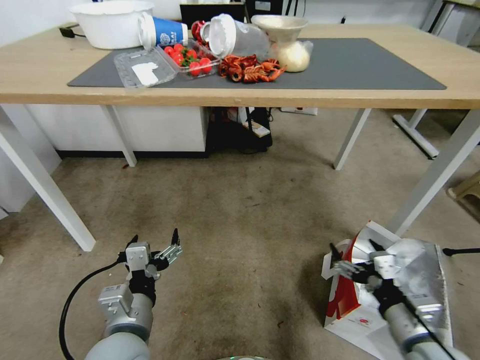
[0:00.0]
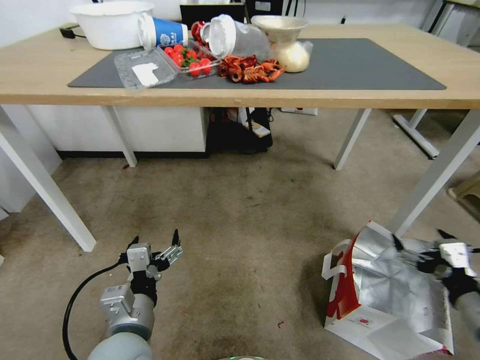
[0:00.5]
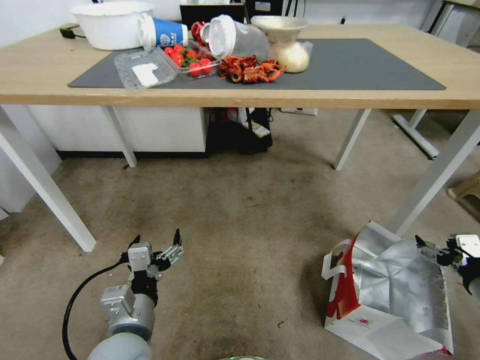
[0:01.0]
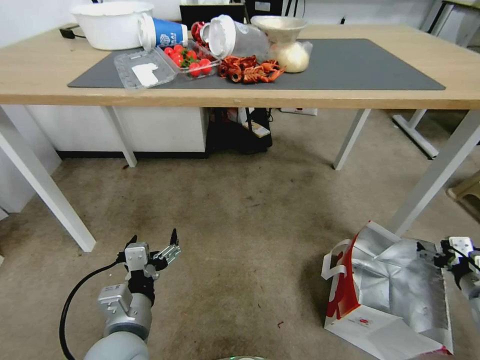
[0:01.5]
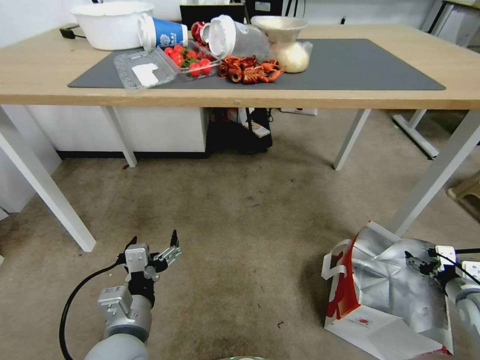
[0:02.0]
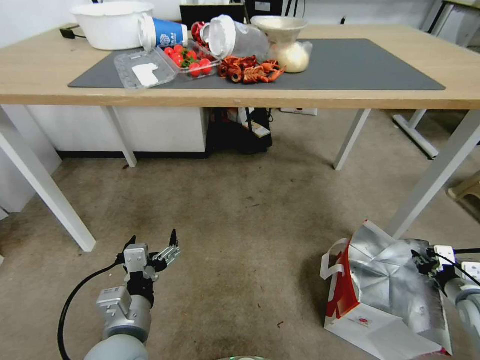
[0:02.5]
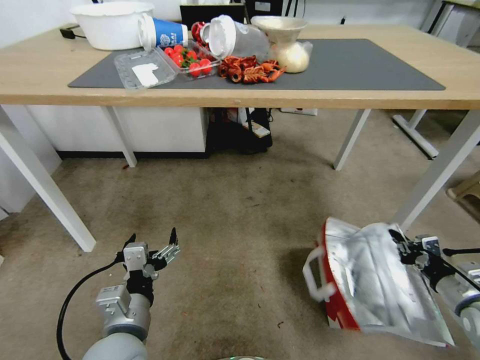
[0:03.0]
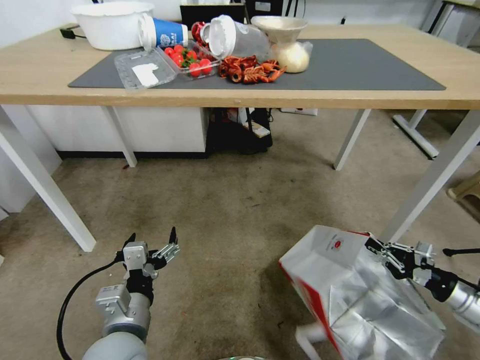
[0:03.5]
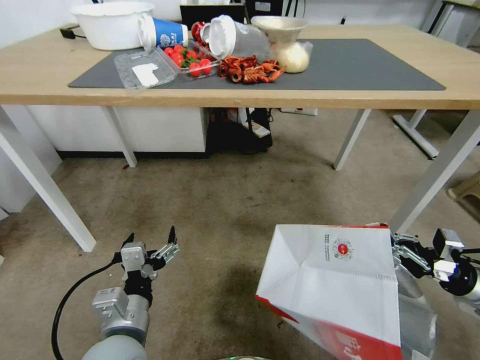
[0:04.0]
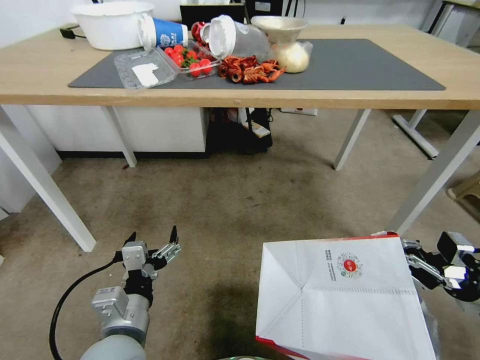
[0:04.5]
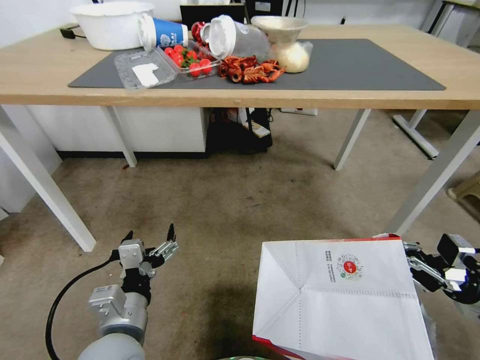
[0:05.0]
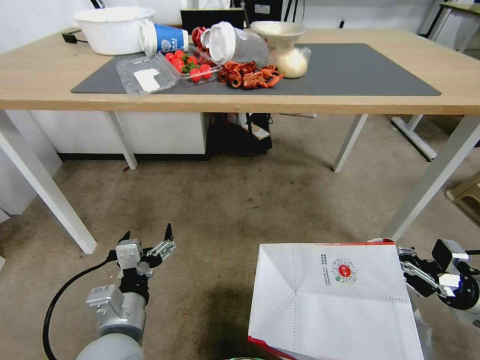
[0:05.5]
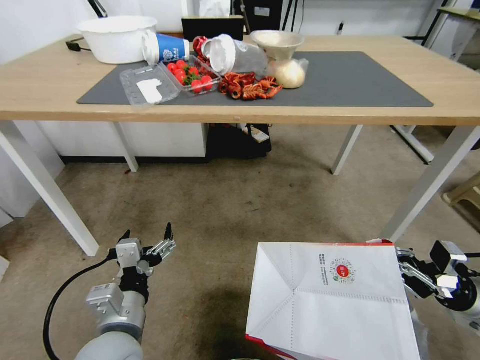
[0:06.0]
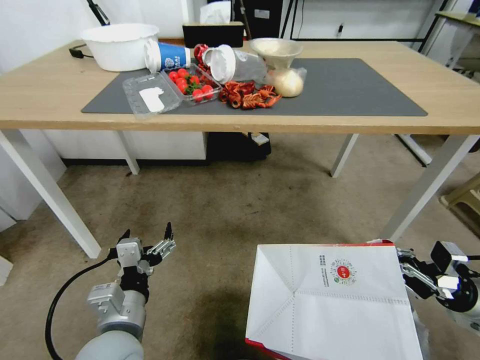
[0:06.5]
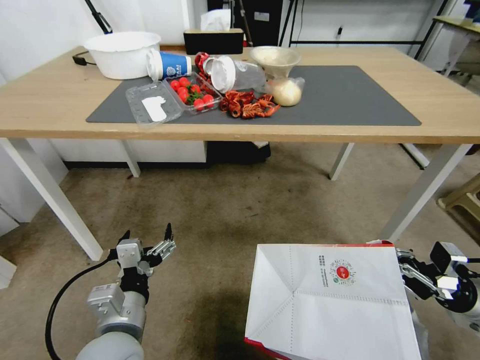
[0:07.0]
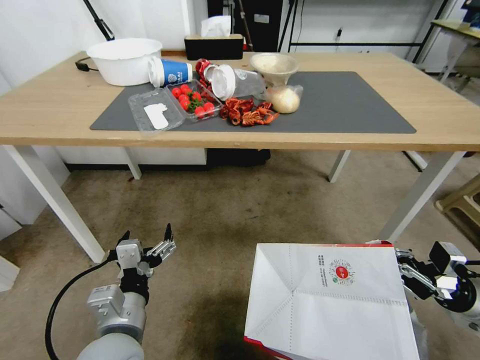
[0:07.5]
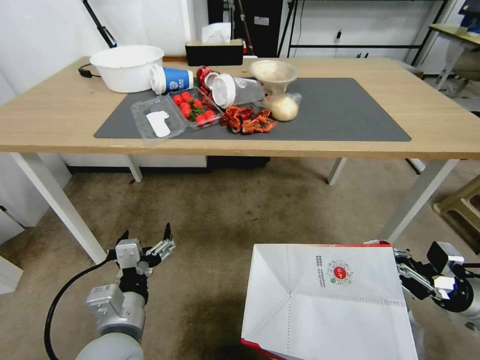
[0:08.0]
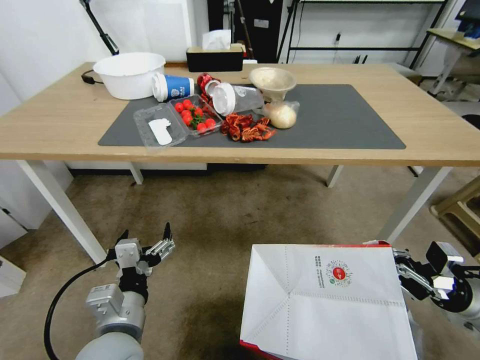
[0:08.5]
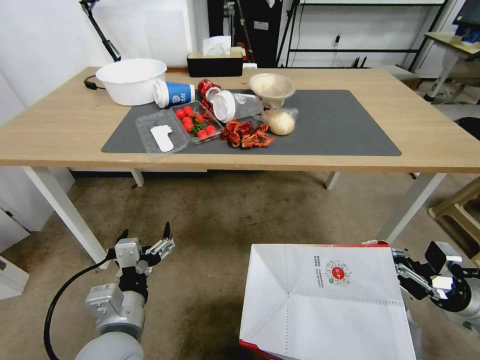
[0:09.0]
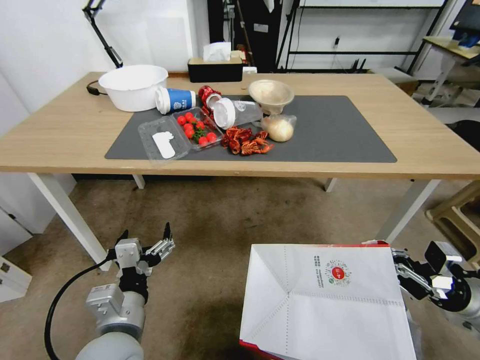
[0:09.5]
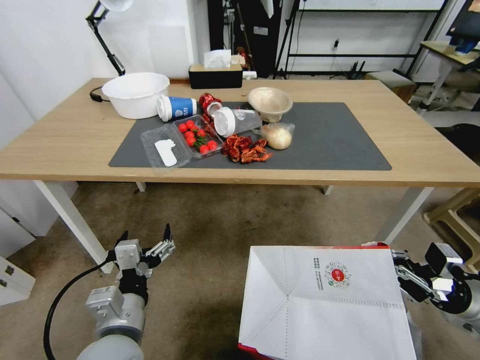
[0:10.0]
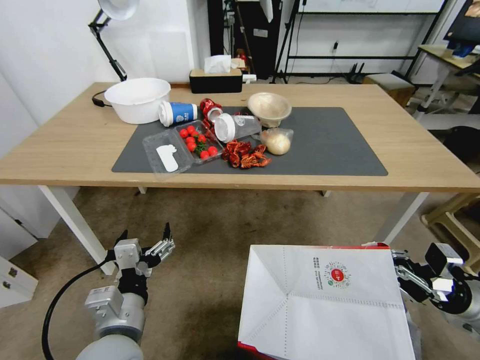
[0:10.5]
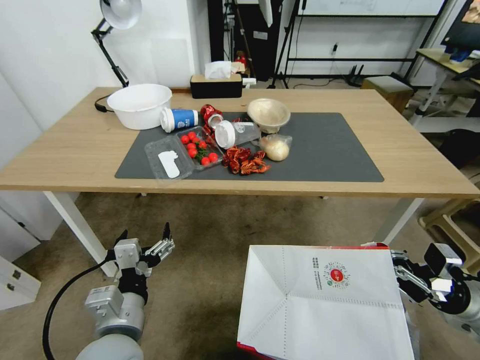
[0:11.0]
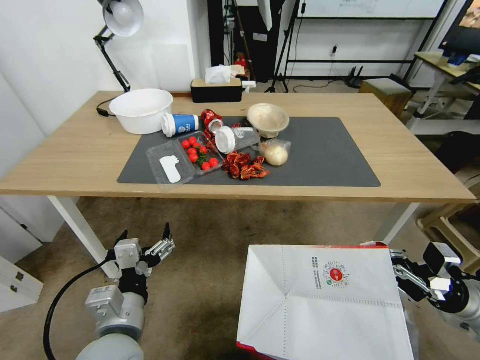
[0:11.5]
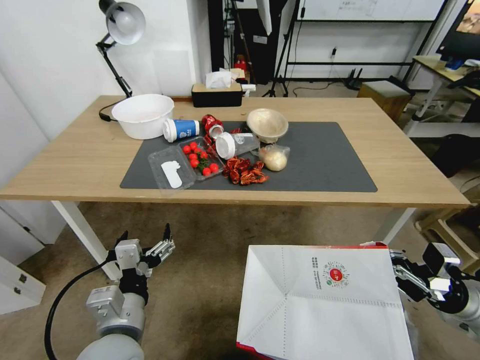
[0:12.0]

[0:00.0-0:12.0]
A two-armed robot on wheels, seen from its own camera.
Task of the whole recording: Pick up the food delivery bag from the floor and place it on the table.
0:00.0 to 0:02.0: The right gripper goes about 20 cm to the right and forward.
0:02.0 to 0:04.0: The right gripper closes its fingers.

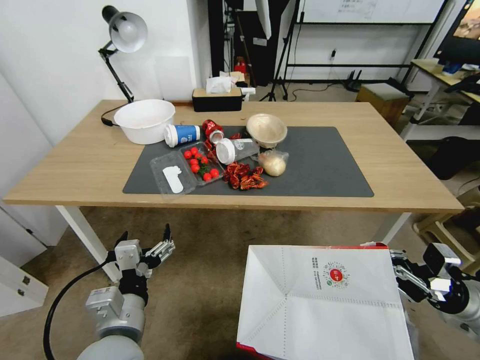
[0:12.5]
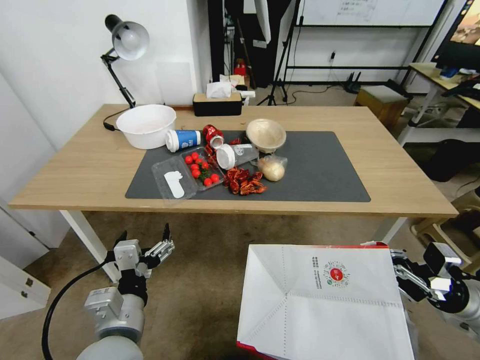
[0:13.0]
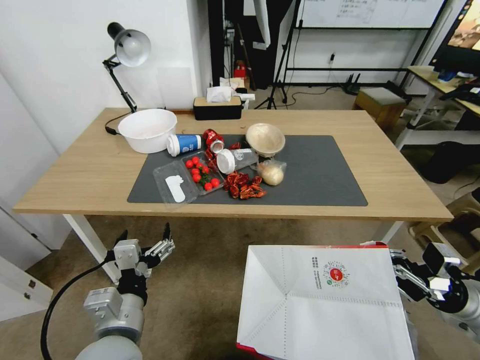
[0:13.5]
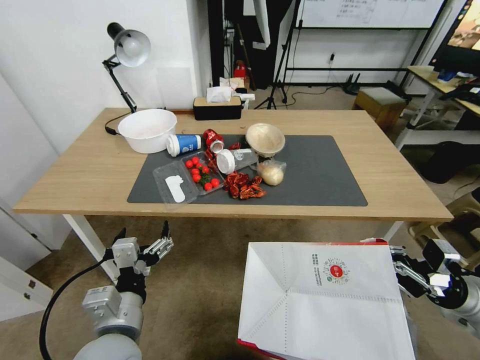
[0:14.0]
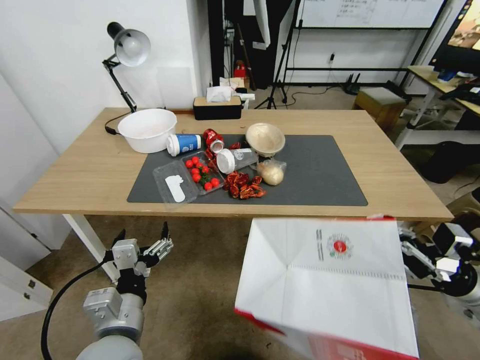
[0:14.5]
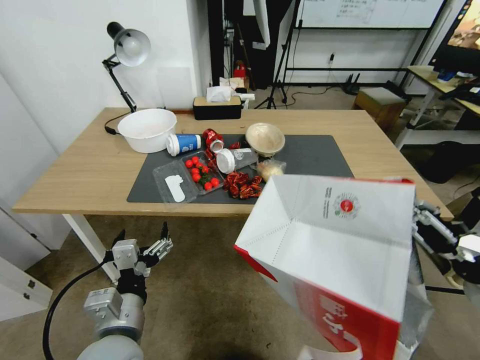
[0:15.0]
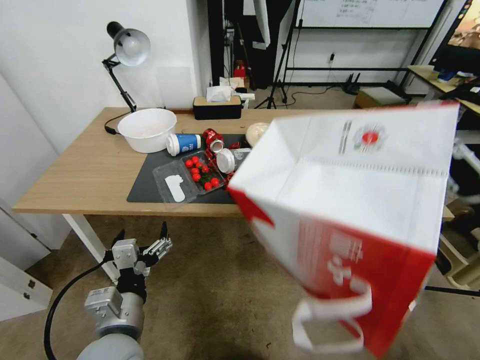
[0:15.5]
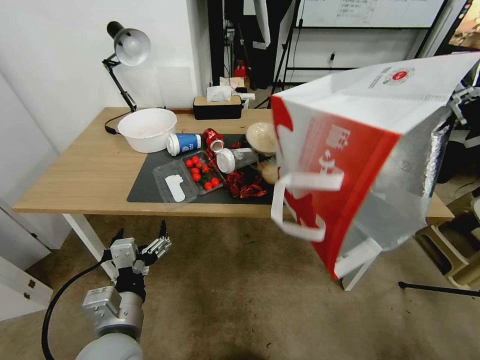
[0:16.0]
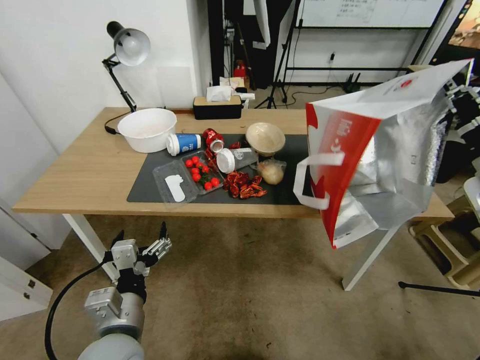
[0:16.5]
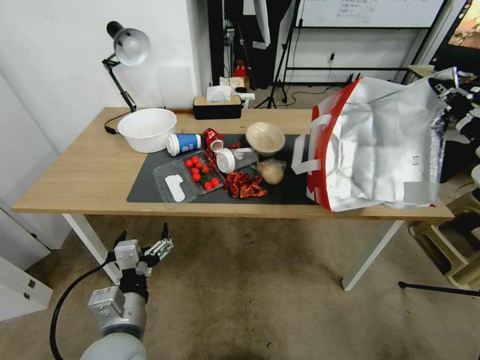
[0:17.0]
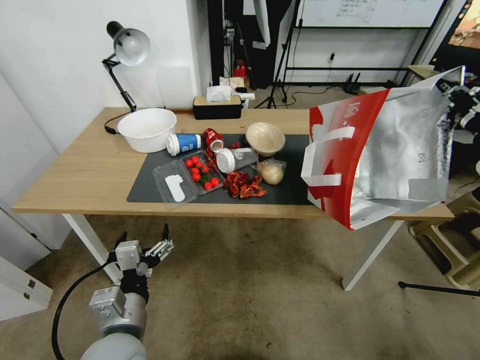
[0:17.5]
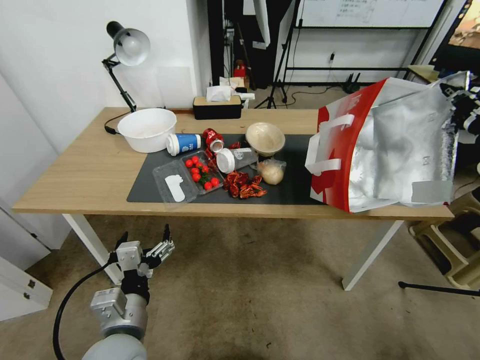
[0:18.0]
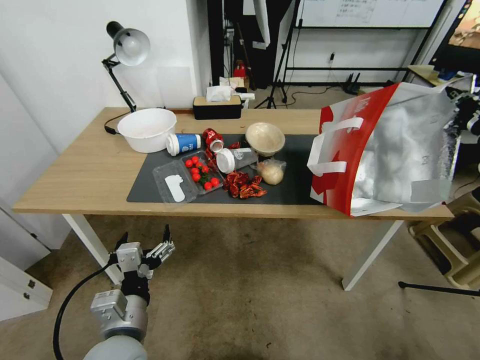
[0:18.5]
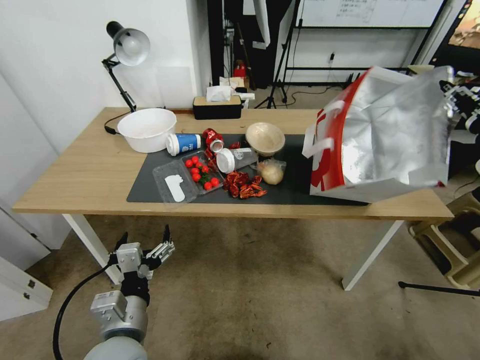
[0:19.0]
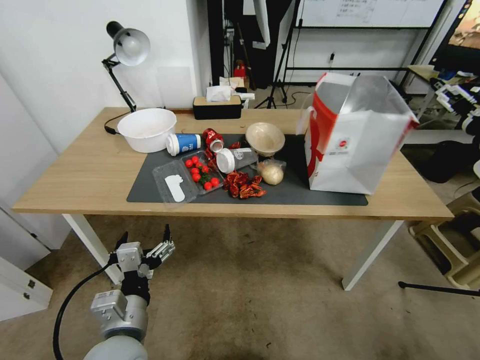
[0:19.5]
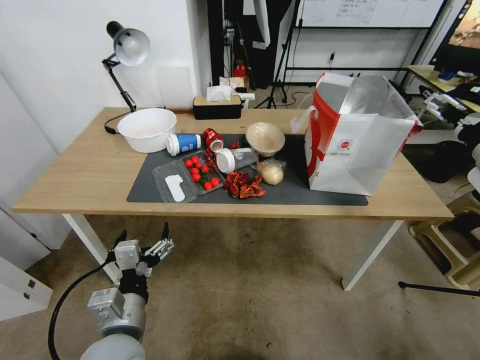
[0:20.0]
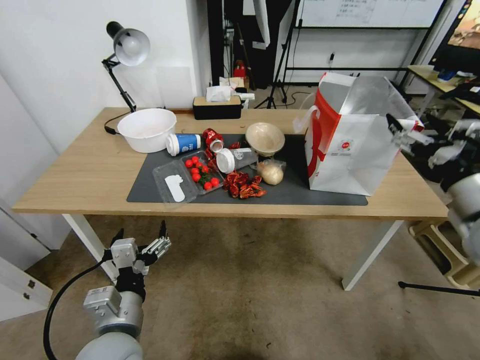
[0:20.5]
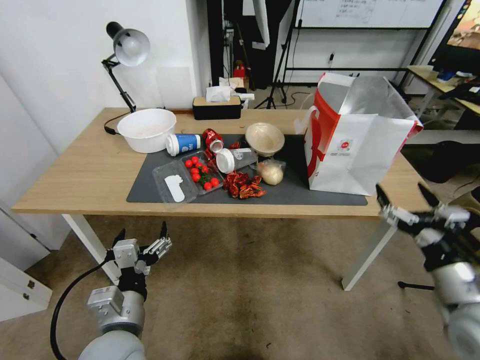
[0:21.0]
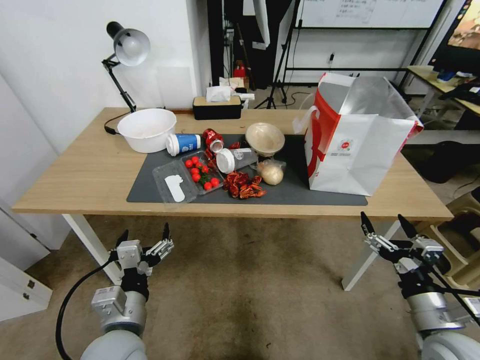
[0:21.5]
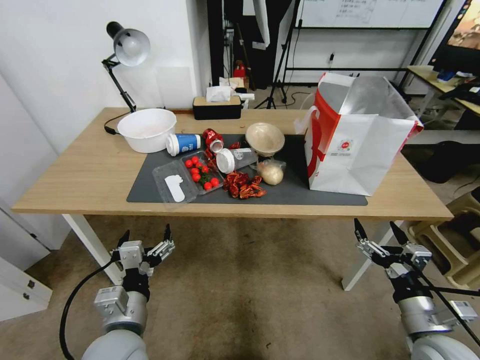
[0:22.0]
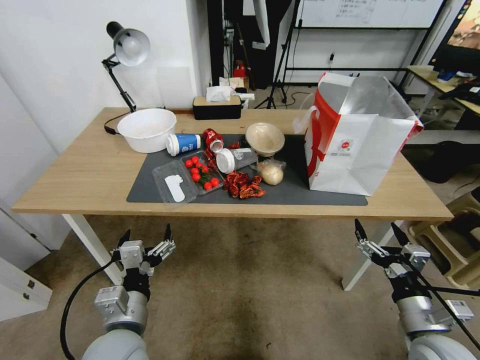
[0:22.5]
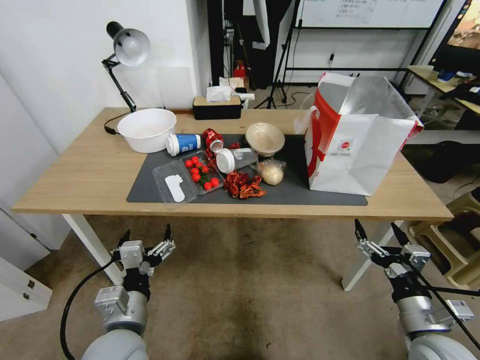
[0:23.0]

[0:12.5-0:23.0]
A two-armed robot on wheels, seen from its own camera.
Task of the whole recording: Pick up the food delivery bag from the floor and place it on the table.
0:14.5 to 0:16.5: The right gripper goes approximately 15 cm upward.
0:16.5 to 0:19.0: The right gripper shifts by roughly 5 cm, and opens.
0:19.0 to 0:21.0: The right gripper moves downward, backward and to the left, approximately 20 cm, and opens.
0:21.0 to 0:23.0: The right gripper shifts roughly 15 cm downward and backward.
